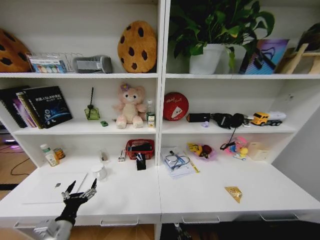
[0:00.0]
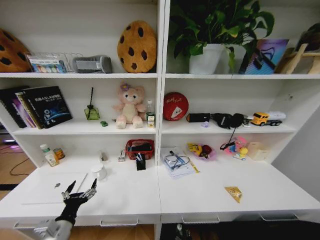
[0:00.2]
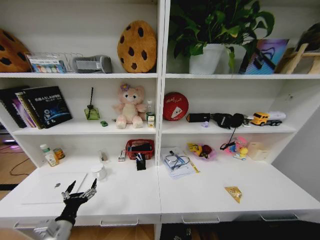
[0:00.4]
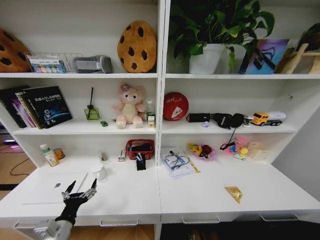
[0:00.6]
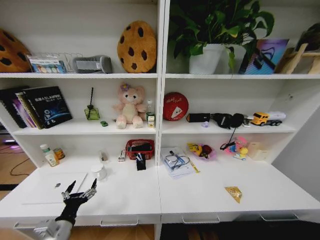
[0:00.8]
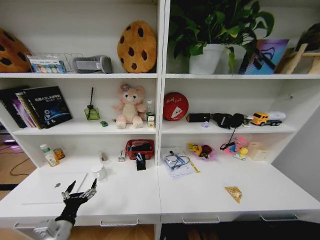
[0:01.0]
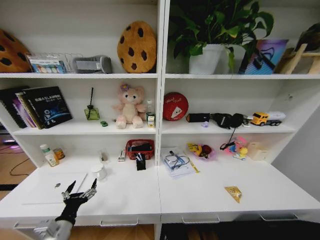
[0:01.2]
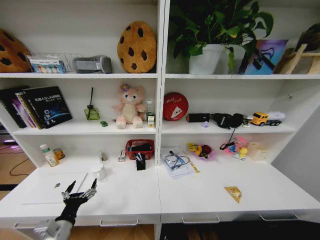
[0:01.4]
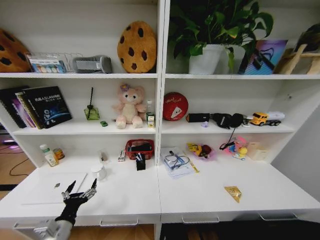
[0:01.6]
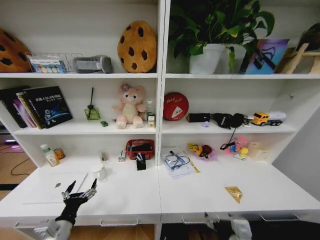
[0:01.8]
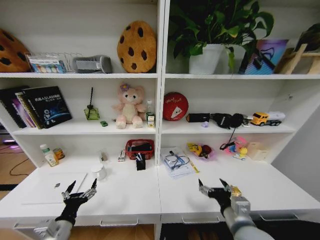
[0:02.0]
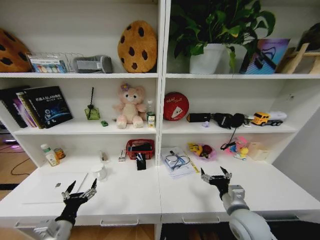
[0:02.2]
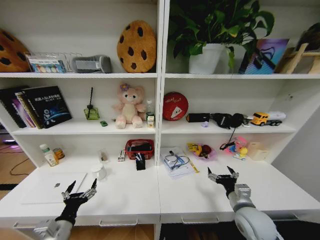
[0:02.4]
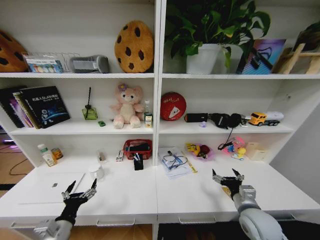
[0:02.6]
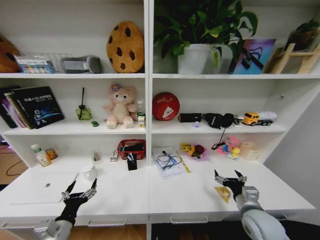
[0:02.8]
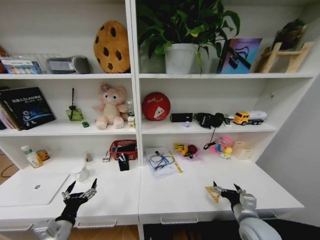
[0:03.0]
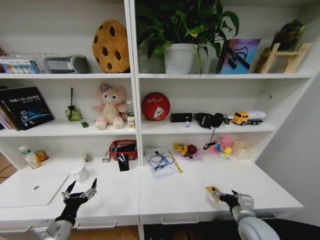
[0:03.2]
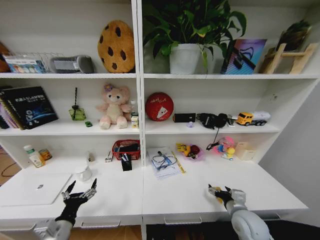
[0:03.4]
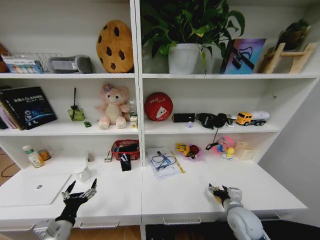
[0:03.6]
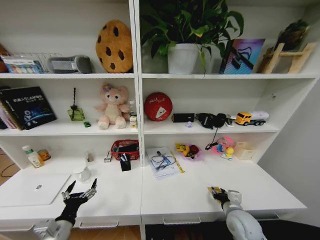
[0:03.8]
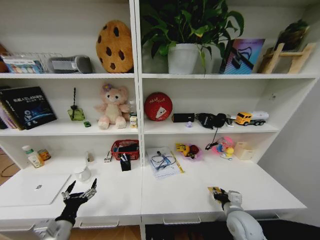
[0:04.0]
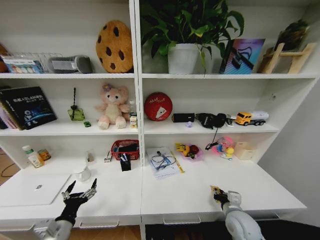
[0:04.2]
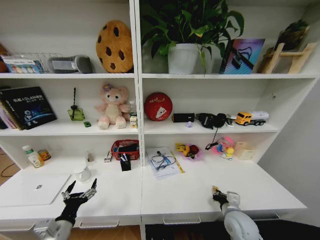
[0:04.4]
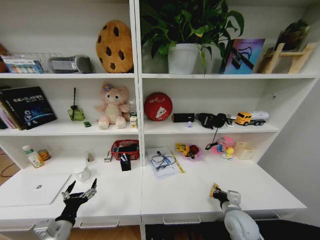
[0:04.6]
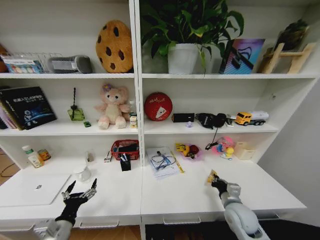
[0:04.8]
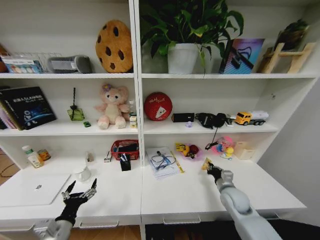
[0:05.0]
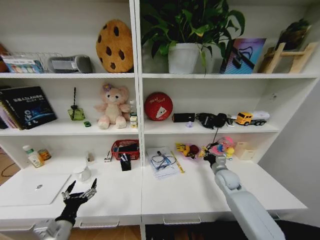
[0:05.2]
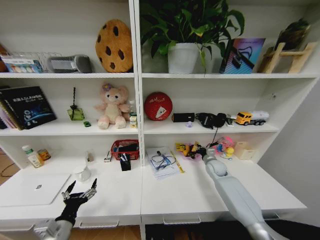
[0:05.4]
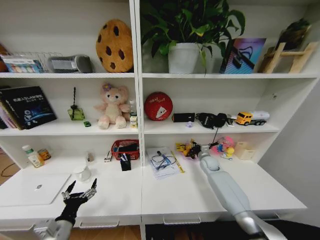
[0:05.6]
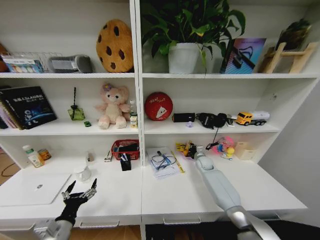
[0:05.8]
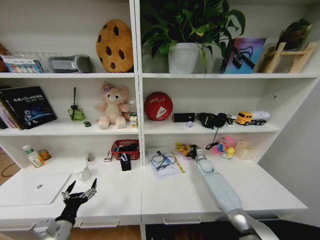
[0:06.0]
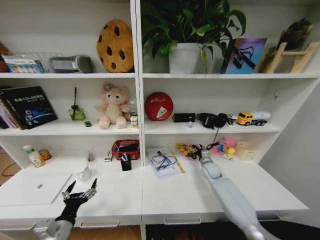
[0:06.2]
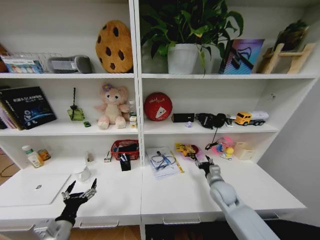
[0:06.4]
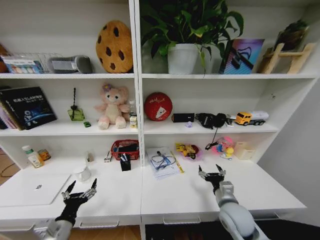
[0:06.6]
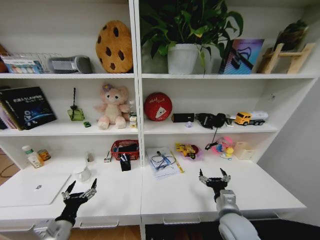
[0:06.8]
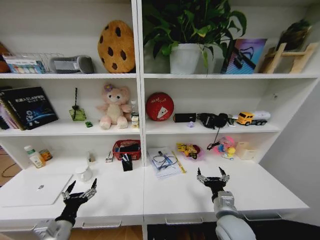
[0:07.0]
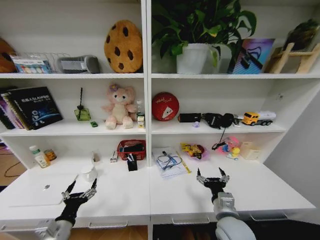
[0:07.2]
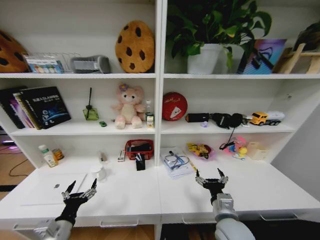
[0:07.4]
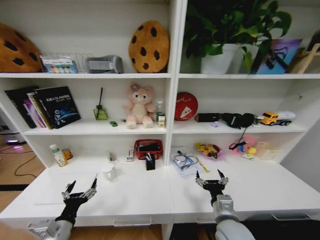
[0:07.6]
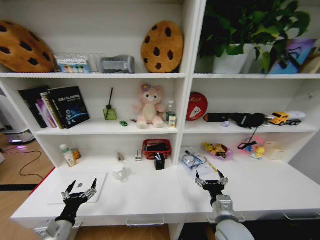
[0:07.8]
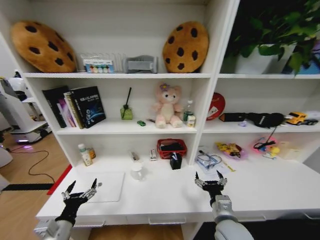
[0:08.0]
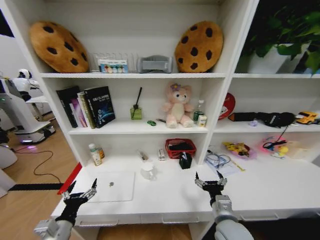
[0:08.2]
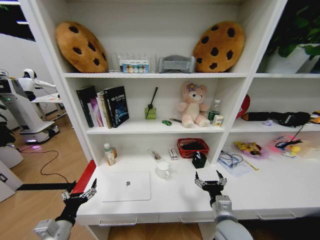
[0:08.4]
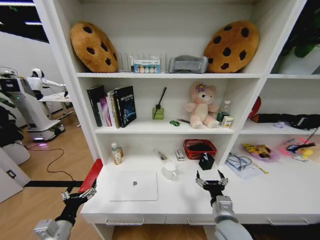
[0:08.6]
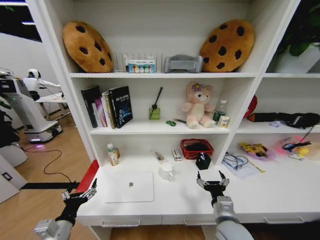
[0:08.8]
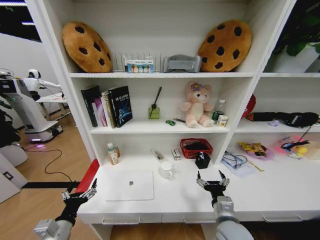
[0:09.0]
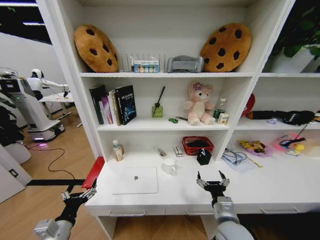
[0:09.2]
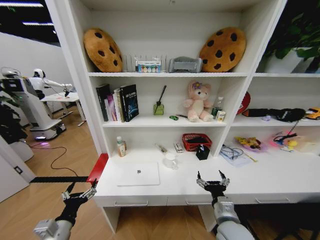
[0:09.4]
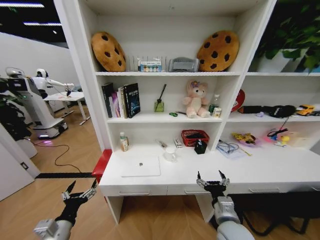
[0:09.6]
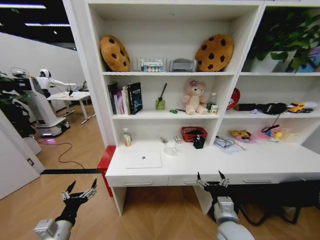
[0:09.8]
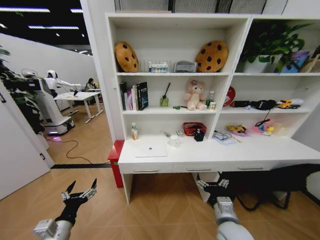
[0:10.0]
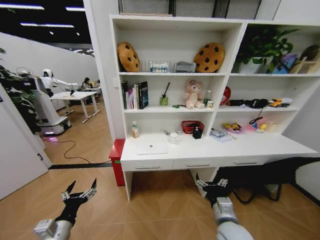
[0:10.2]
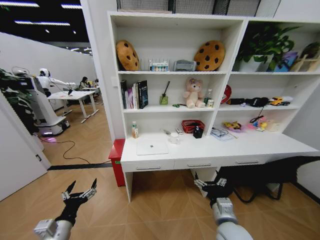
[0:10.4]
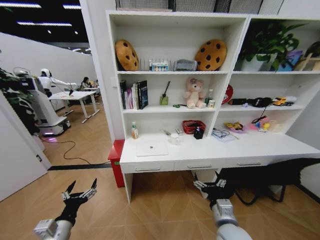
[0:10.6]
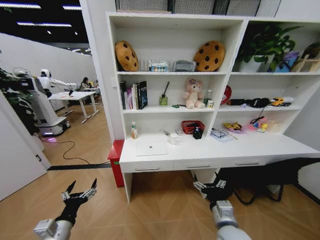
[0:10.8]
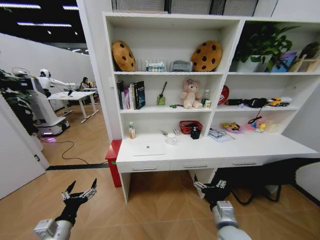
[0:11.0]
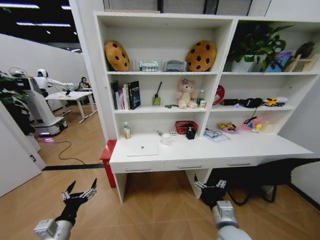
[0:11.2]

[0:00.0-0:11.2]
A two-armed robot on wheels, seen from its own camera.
Task of the whole recording: Organize the objects on the table.
0:00.0 to 0:01.6: The right gripper travels upward by roughly 40 cm, and opens up.
0:01.6 to 0:03.2: The right gripper travels forward and to the right by some 20 cm.
0:03.2 to 0:04.8: The right gripper goes about 5 cm forward, and closes up.
0:04.8 to 0:06.4: The right gripper goes forward and returns, some 30 cm each way, and opens up.
0:06.4 to 0:08.0: The right gripper moves backward and to the left, roughly 20 cm.
